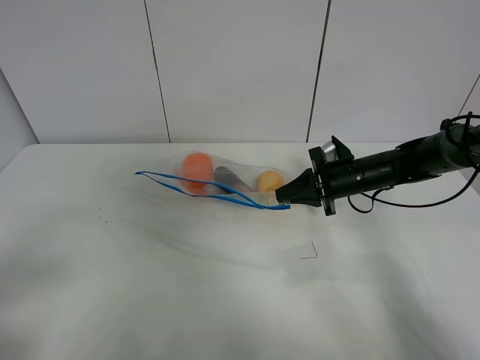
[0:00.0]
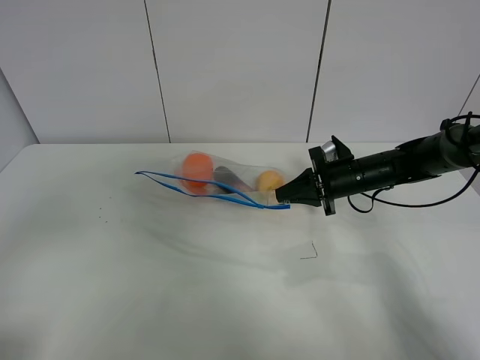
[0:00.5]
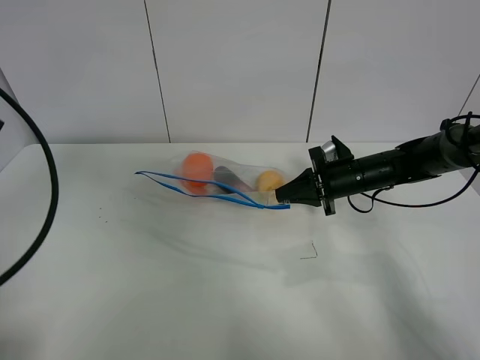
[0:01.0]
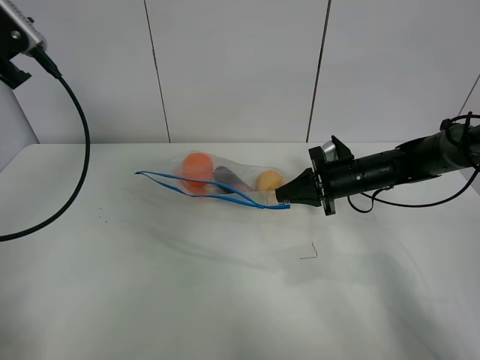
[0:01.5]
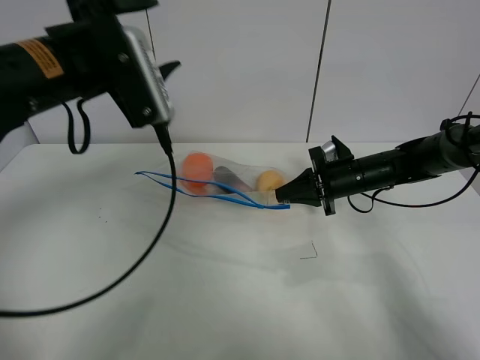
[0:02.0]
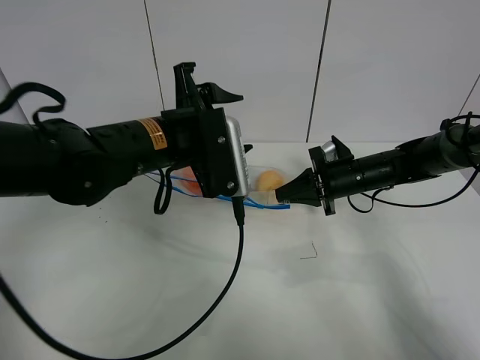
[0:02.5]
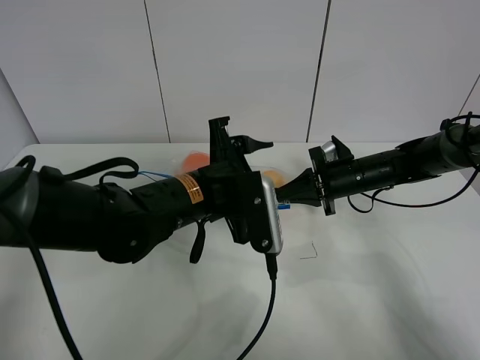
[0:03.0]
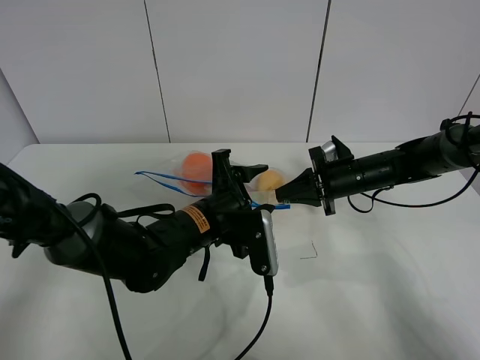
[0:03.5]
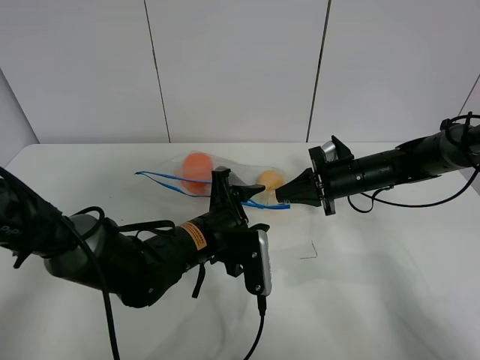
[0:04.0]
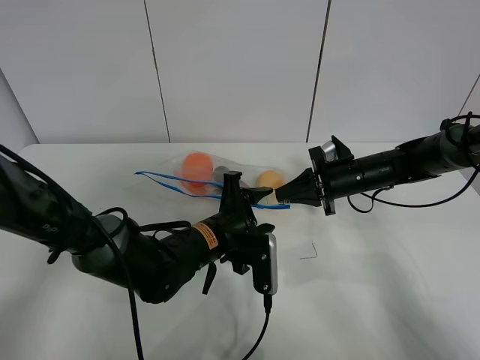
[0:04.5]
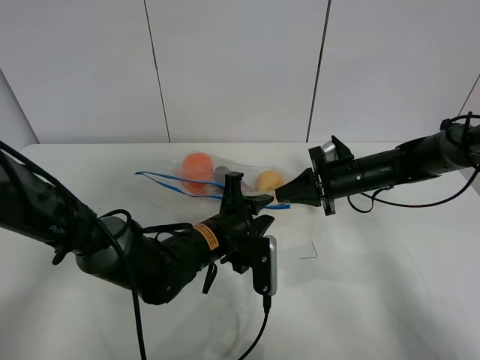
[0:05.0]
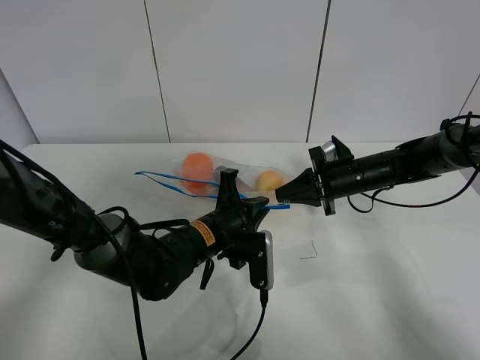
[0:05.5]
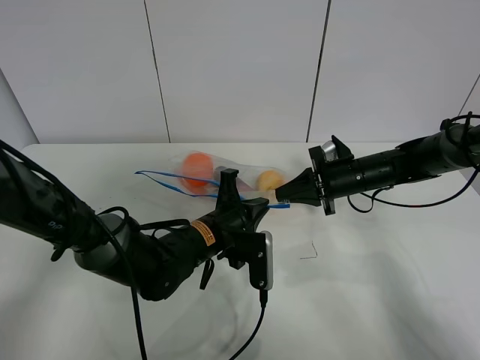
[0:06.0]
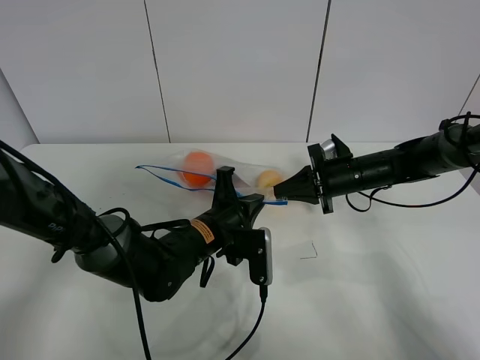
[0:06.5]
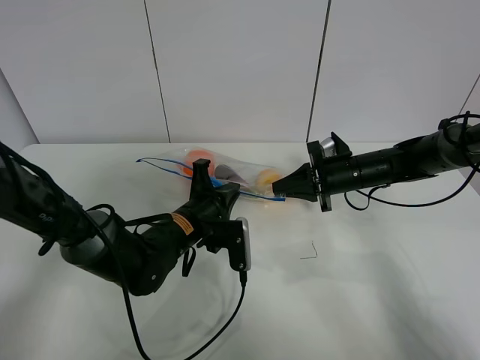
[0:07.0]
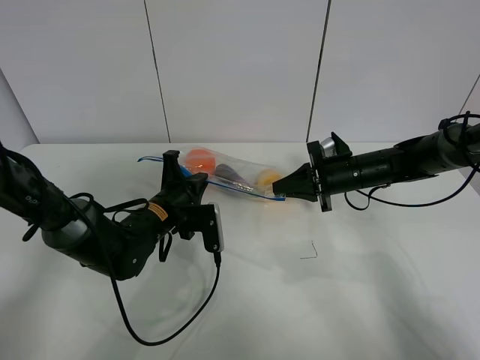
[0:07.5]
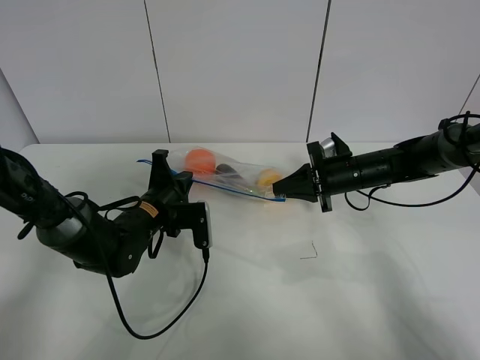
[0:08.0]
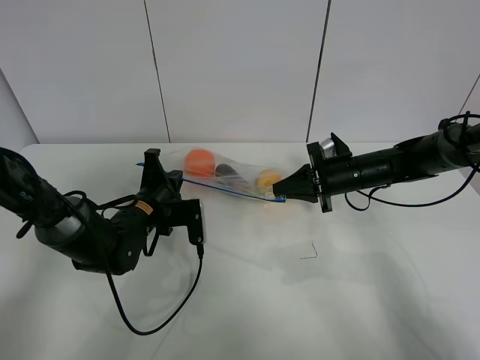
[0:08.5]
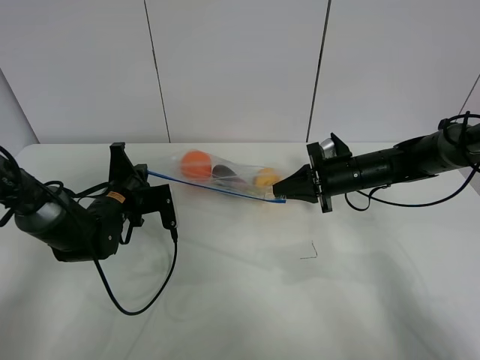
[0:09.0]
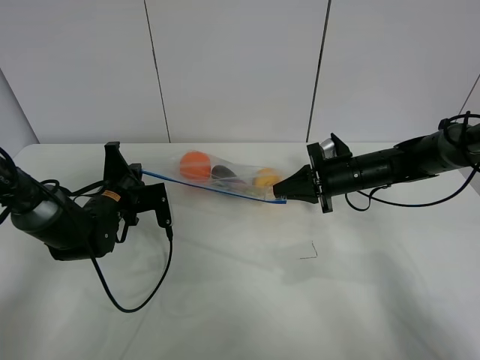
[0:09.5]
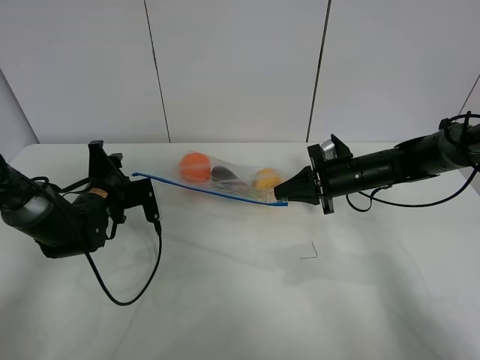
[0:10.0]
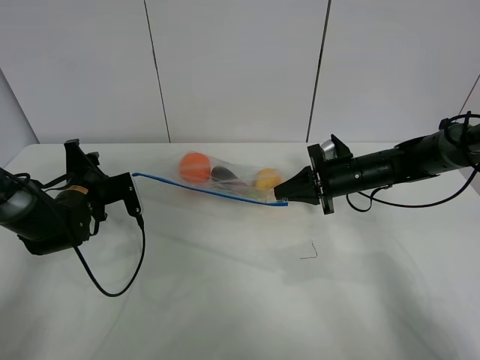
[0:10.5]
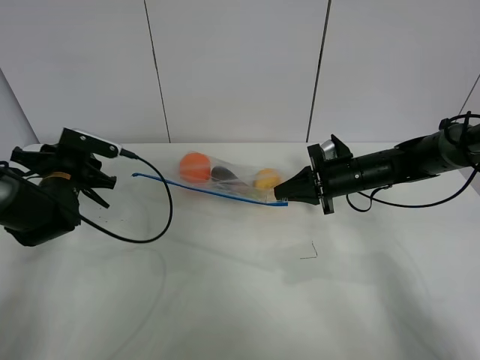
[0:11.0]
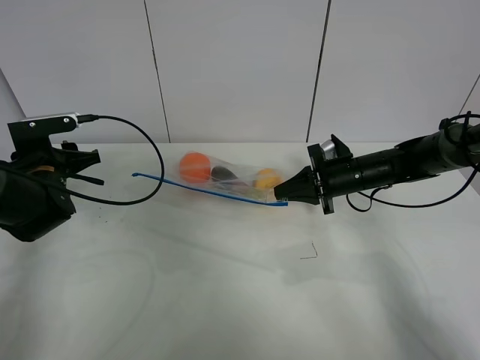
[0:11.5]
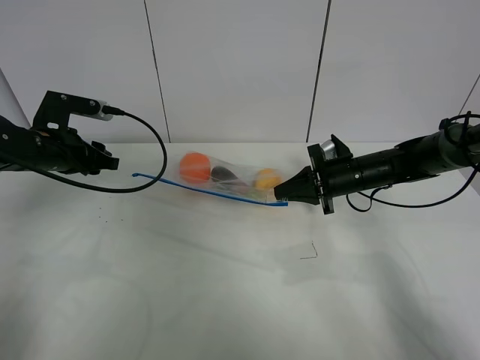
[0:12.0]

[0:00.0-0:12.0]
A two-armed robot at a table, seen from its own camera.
Step, 0:00.5 to 0:10.0: Pull the fruit bag with left gripper.
0:00.0 to 0:02.0: The left gripper heads forward and to the right, covering about 30 cm.
0:02.0 to 0:04.0: The left gripper is displaced downward and to the right by some 25 cm.
0:04.0 to 0:06.0: The left gripper closes.
0:06.0 to 0:08.0: The left gripper travels to the left by approximately 10 cm.
0:08.0 to 0:10.0: The left gripper travels to the left by roughly 10 cm, and opens its fingers.
0:10.0 to 0:12.0: The left gripper is displaced upward by some 10 cm.

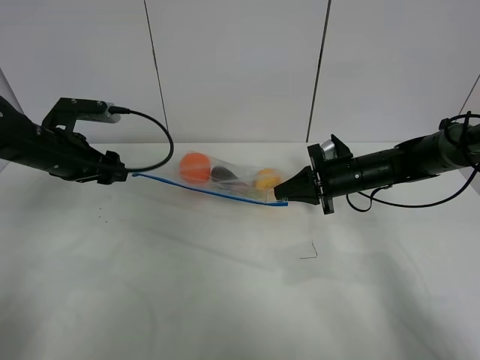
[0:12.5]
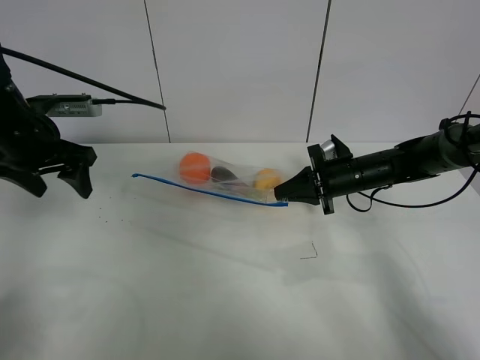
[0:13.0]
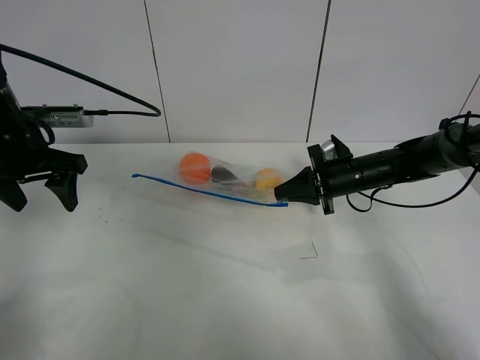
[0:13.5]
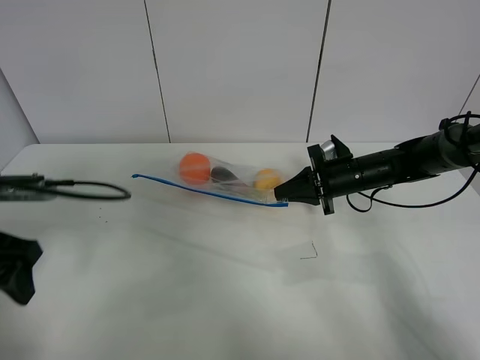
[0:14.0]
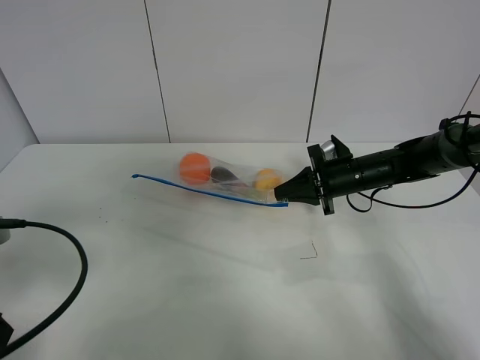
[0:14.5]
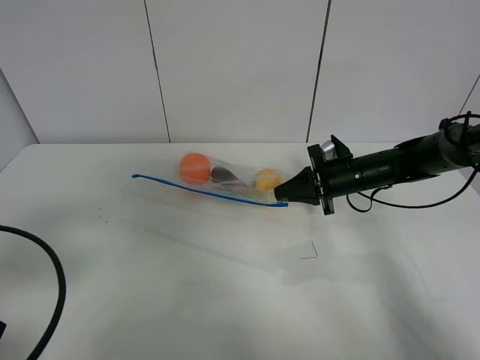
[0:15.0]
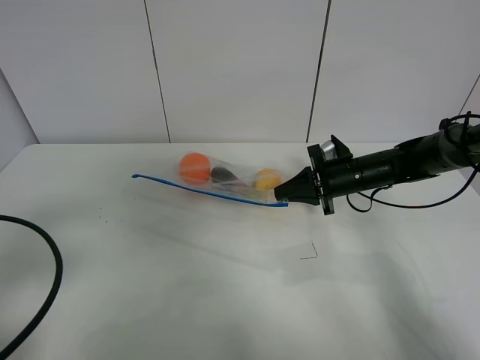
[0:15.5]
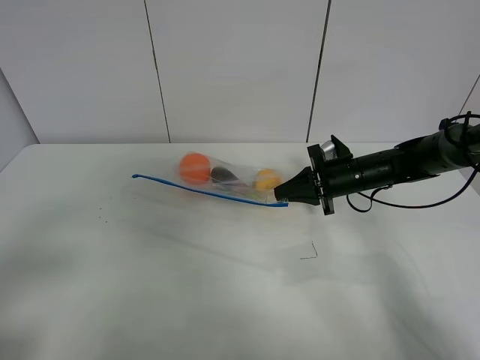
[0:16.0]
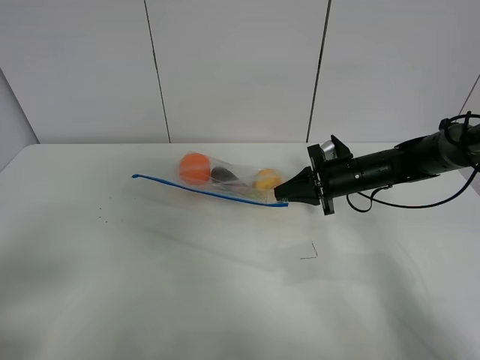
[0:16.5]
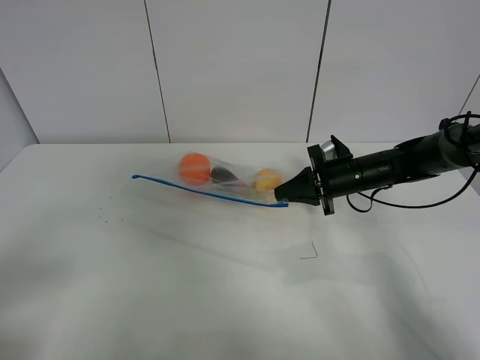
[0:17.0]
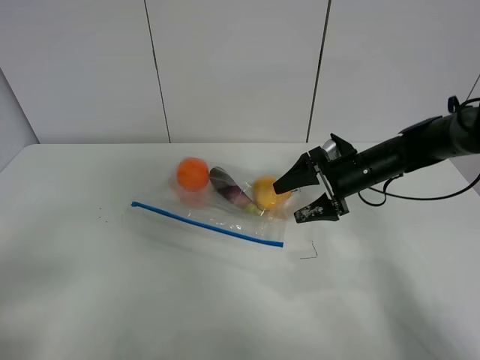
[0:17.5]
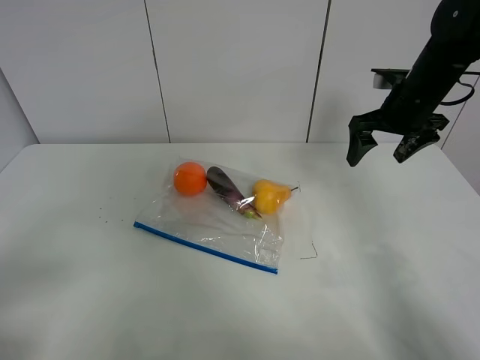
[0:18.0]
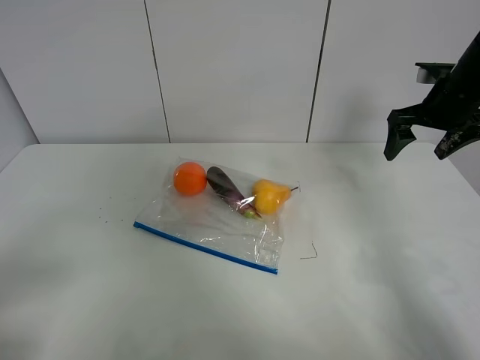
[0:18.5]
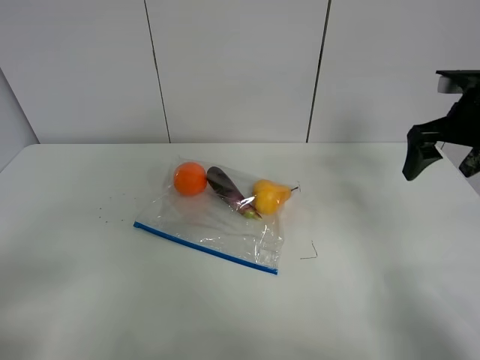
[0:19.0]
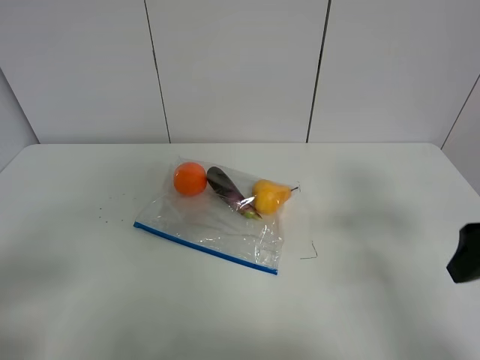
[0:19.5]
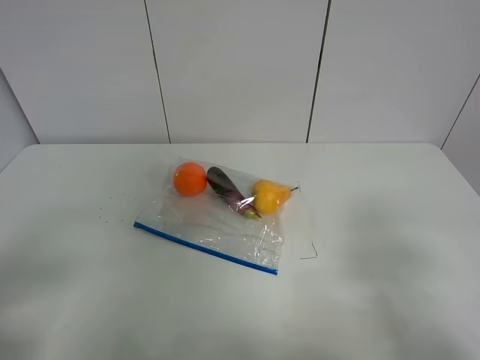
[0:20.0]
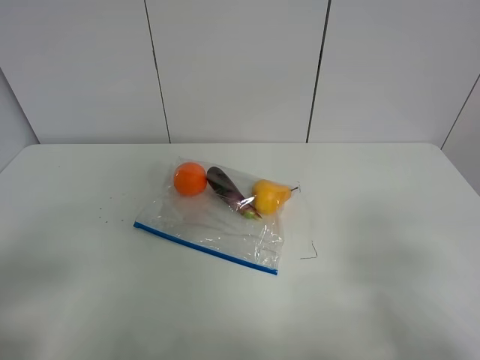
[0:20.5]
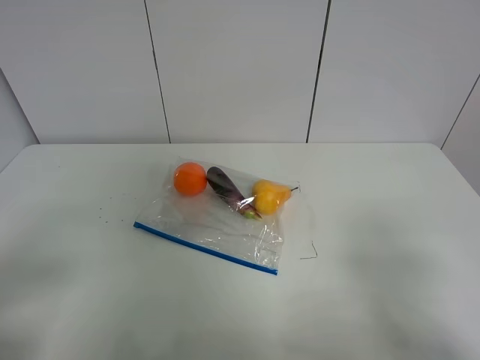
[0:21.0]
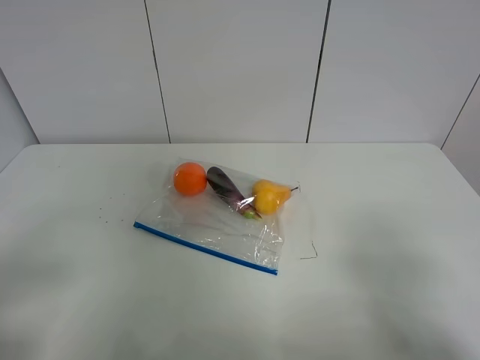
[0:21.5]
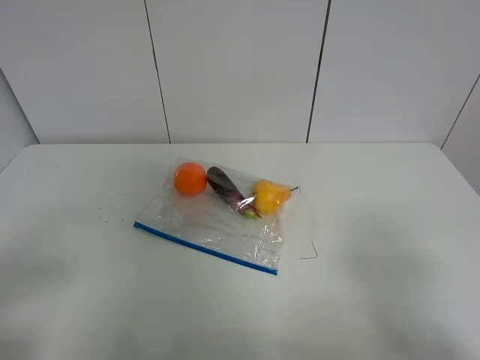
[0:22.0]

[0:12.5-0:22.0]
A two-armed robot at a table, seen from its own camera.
0:12.5 to 0:14.5: The left gripper shifts roughly 25 cm backward.
0:14.5 to 0:16.5: The left gripper travels backward by some 10 cm.
0:16.5 to 0:18.0: The right gripper heads upward, covering some 15 cm, and opens up.
0:18.0 to 0:20.0: The right gripper moves backward, approximately 35 cm.
